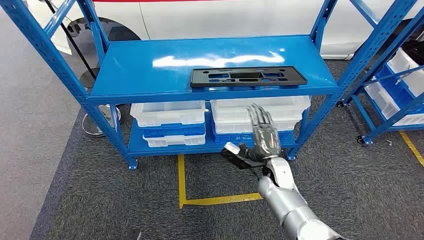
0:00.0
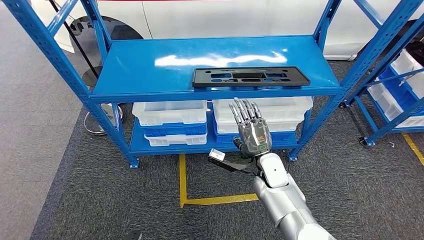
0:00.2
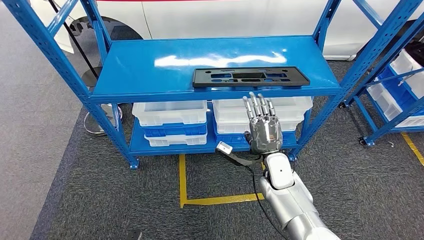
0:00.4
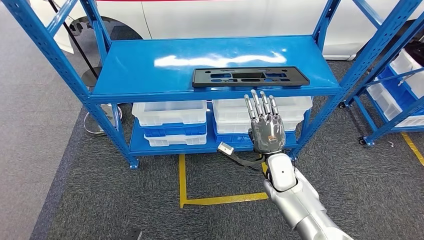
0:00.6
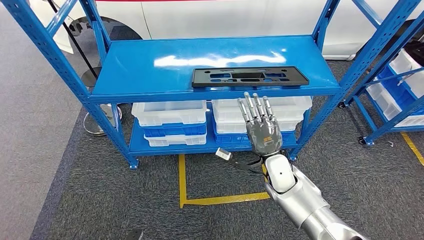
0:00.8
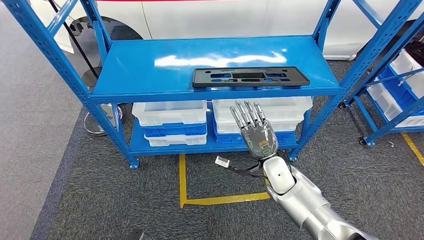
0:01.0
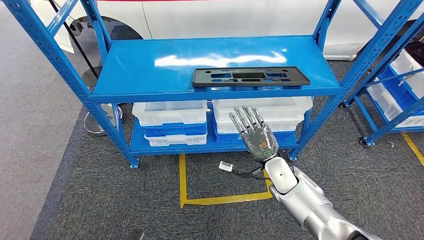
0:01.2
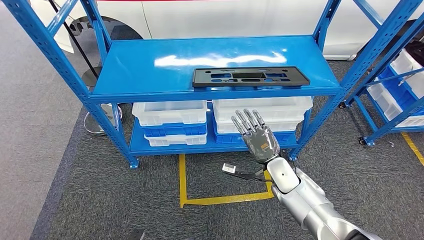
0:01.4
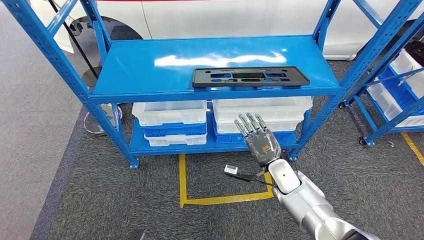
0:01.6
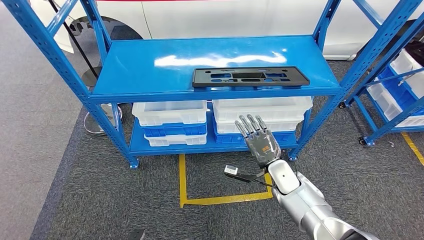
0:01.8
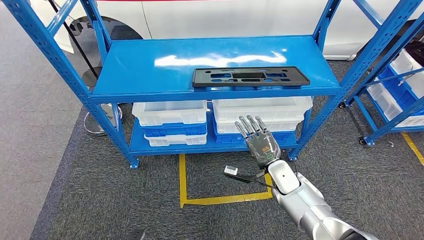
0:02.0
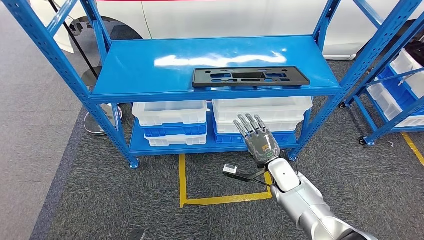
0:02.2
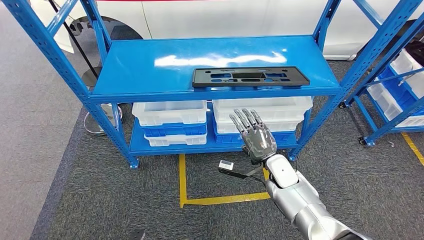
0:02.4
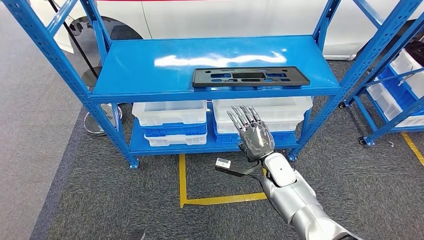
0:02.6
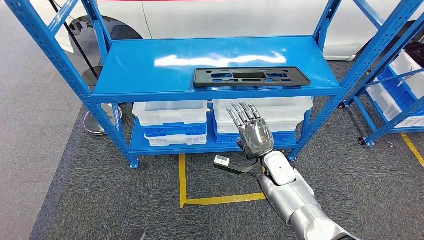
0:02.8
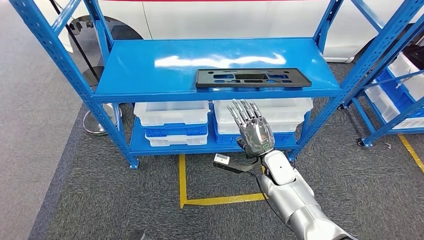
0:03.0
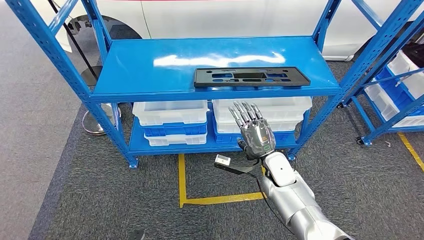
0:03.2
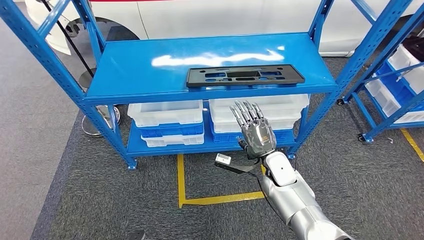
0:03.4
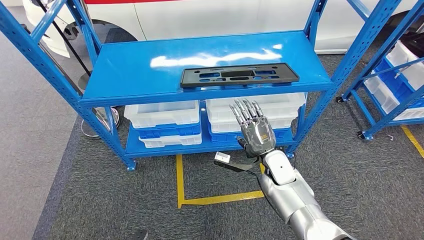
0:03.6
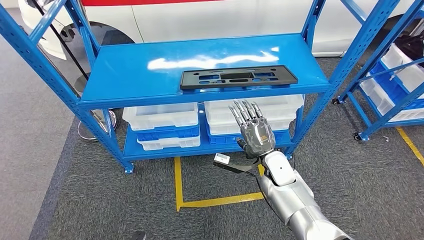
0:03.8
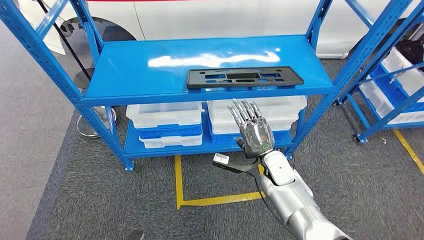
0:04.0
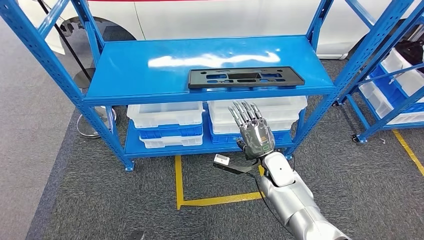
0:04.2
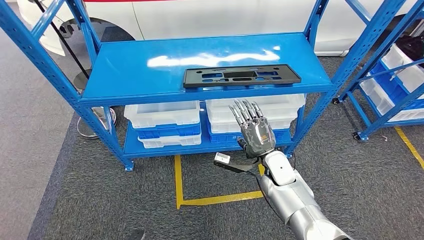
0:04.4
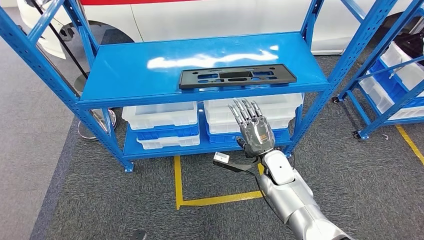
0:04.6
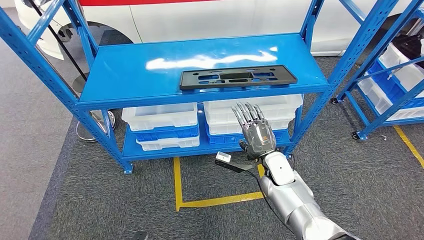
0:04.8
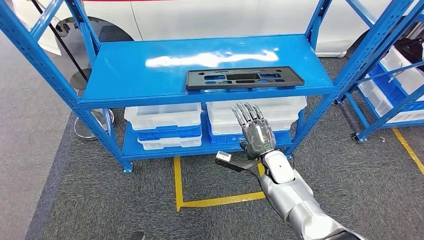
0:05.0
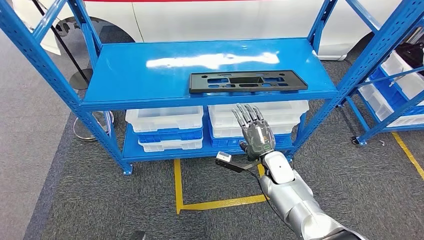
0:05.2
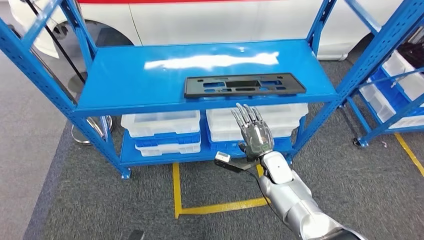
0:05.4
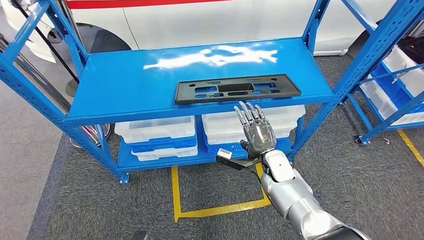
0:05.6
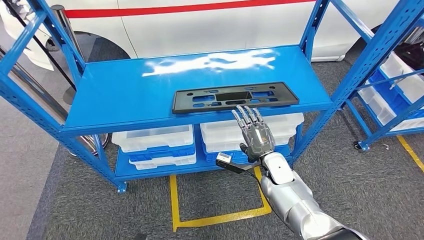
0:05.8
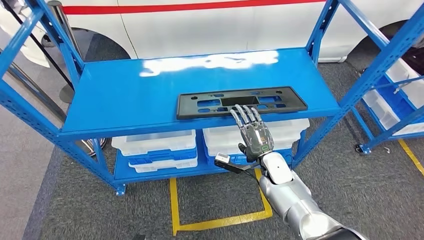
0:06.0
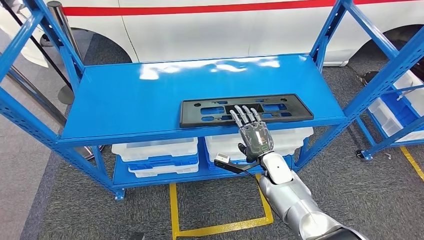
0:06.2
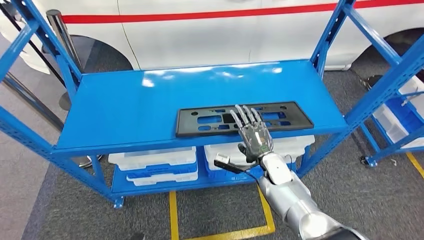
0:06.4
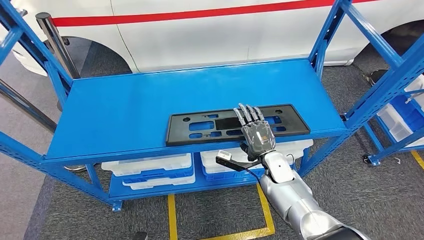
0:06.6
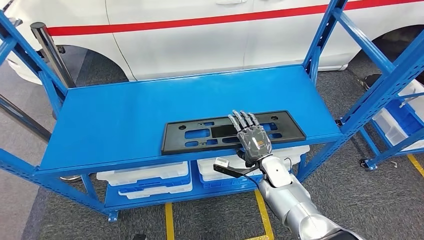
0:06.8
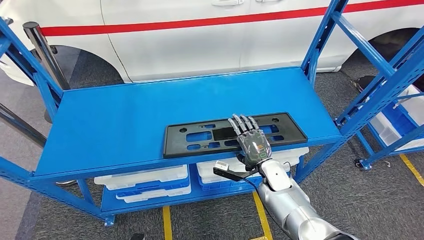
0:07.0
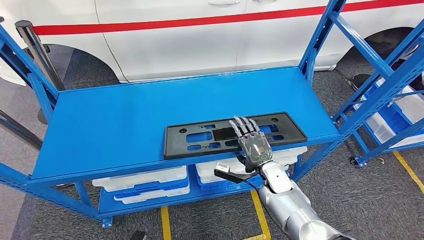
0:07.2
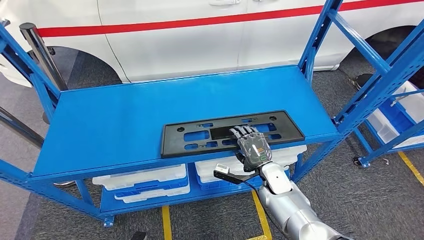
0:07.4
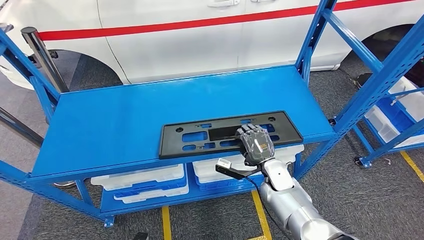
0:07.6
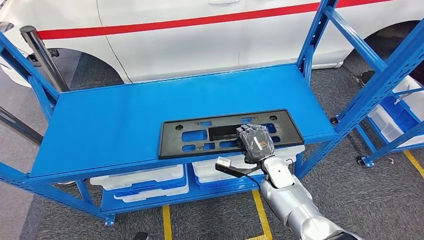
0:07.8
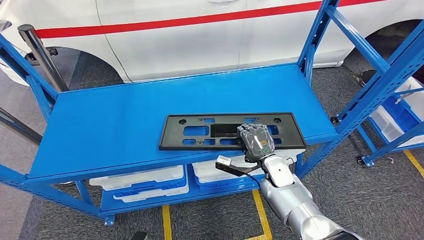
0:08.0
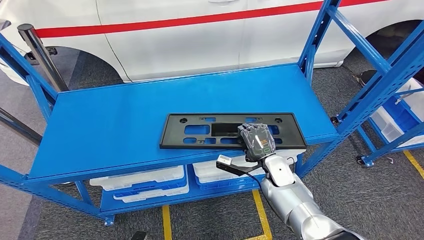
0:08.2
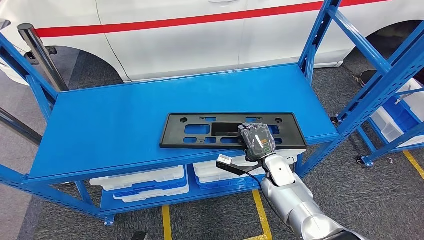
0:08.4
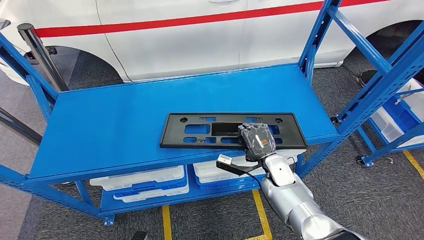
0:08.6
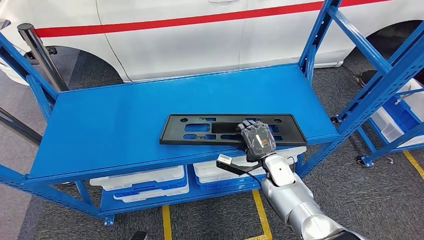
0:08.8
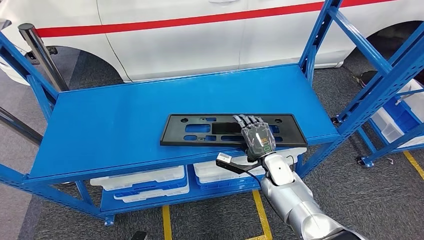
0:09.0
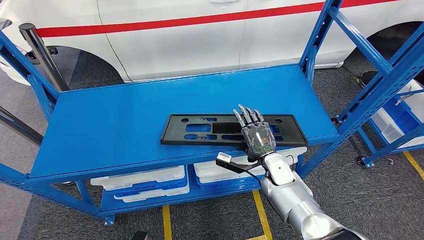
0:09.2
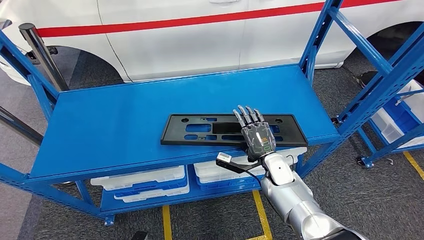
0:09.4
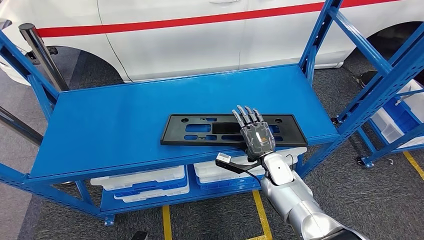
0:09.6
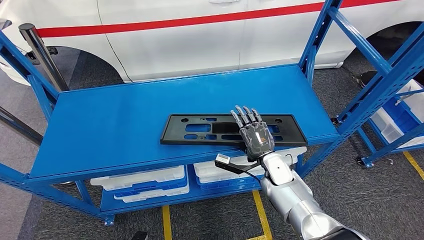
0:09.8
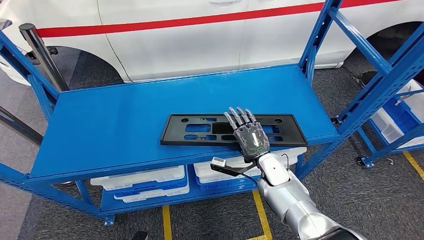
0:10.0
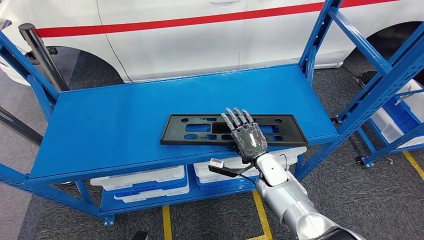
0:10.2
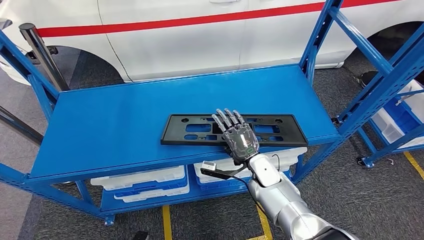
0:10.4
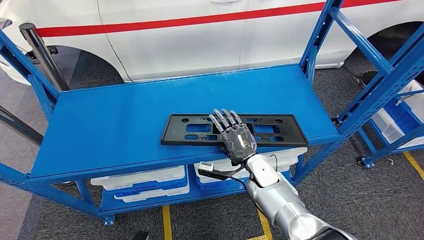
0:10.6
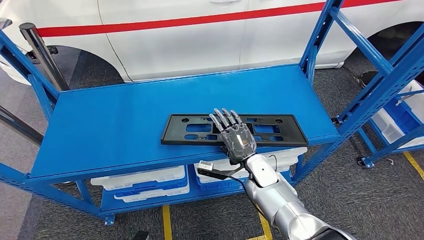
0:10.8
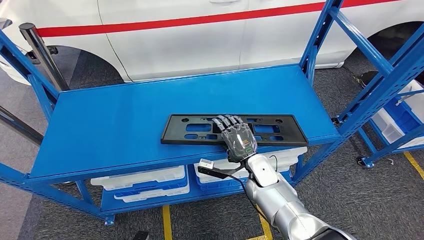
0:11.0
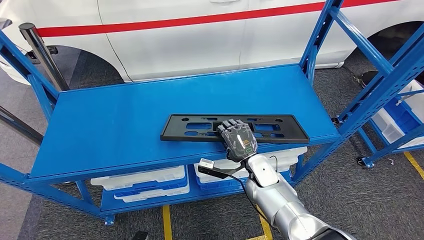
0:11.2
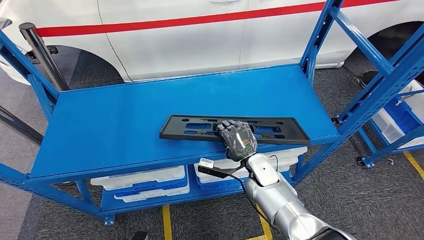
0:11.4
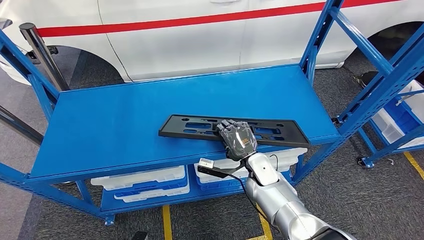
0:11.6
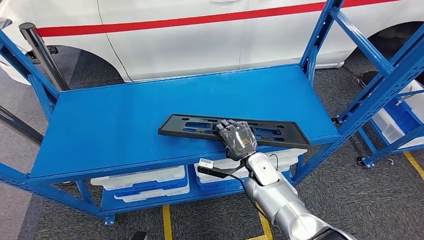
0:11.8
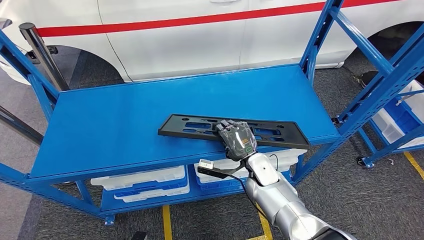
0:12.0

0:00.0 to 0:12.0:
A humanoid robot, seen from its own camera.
0:01.6 to 0:03.0: The hands stay close to where they were, moving slightly.
0:09.0 to 0:12.0: The hands make only small movements.

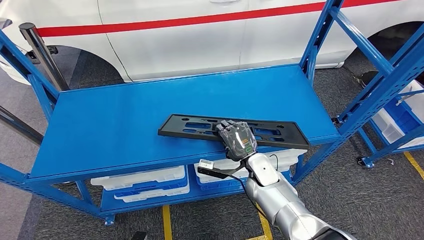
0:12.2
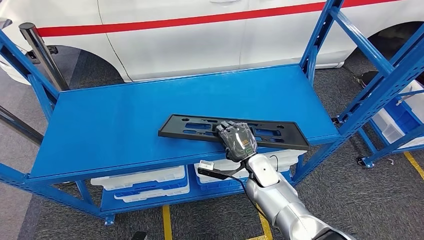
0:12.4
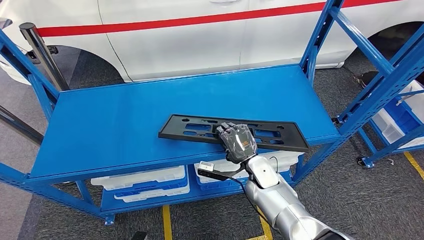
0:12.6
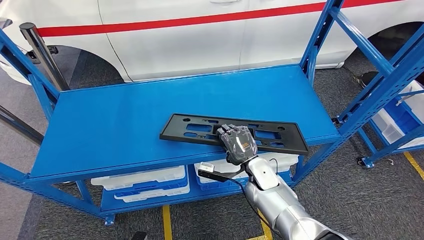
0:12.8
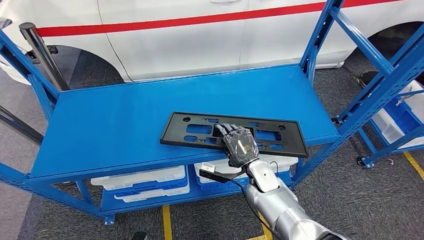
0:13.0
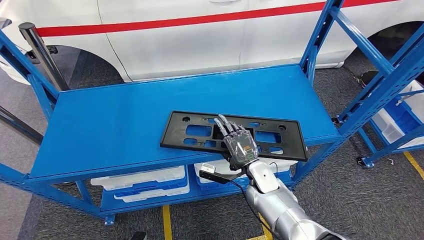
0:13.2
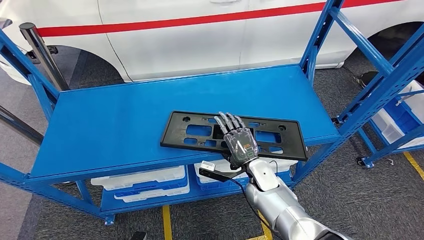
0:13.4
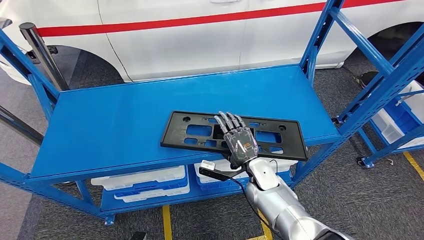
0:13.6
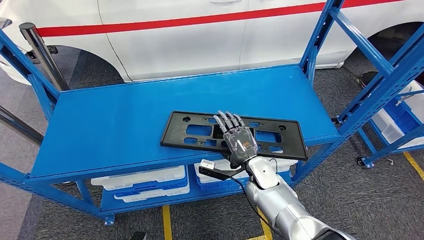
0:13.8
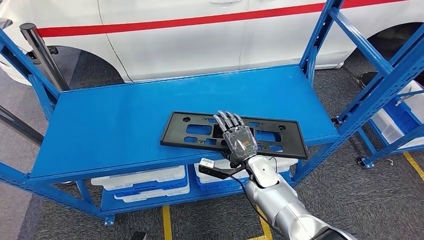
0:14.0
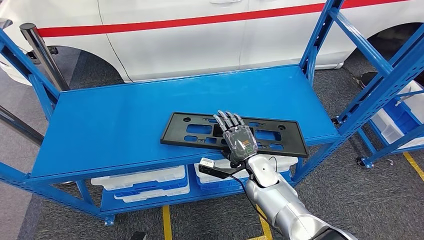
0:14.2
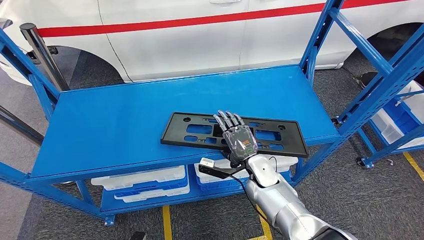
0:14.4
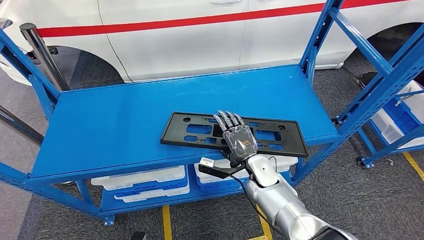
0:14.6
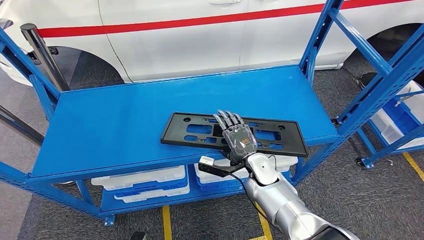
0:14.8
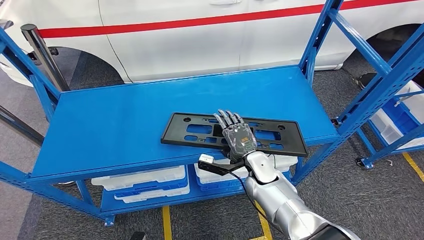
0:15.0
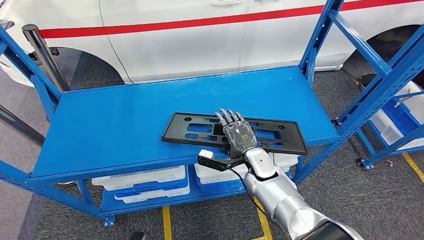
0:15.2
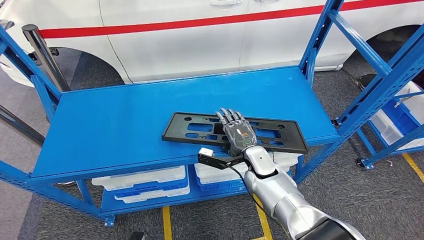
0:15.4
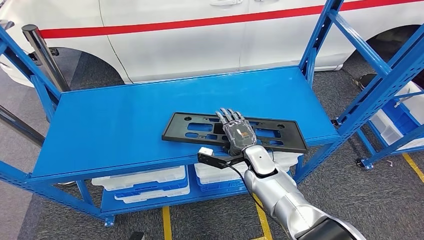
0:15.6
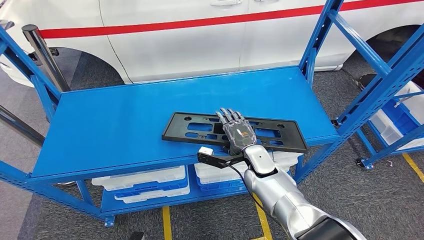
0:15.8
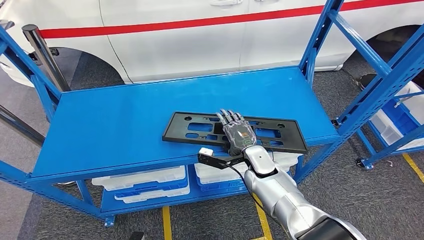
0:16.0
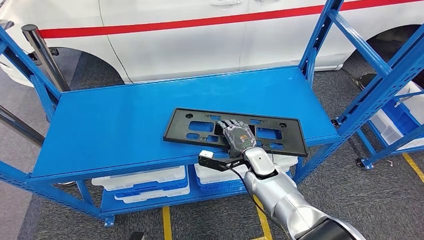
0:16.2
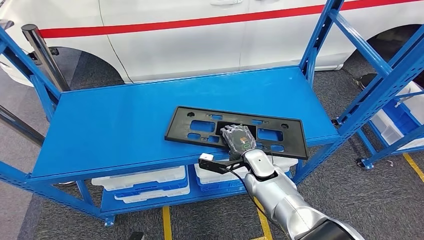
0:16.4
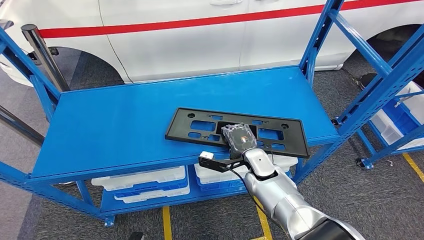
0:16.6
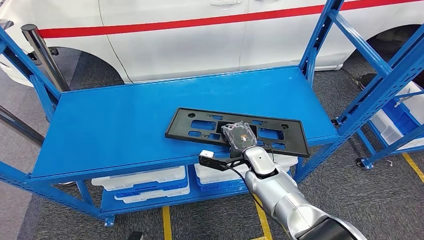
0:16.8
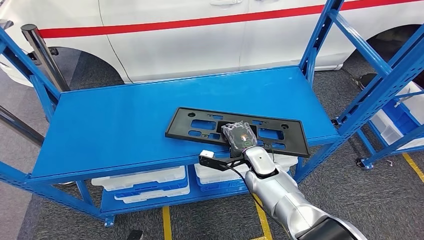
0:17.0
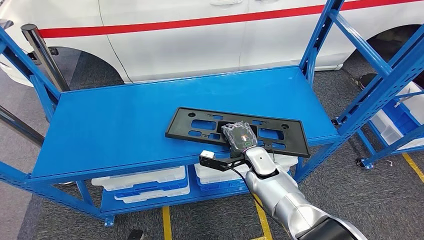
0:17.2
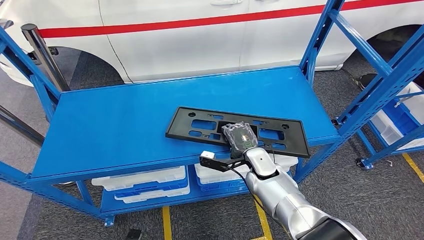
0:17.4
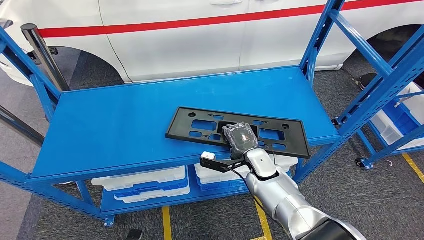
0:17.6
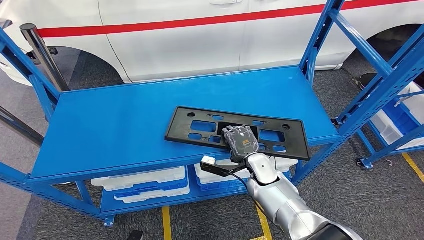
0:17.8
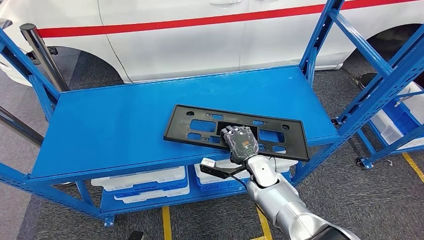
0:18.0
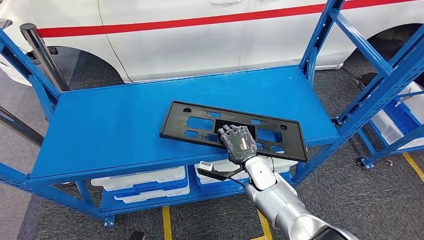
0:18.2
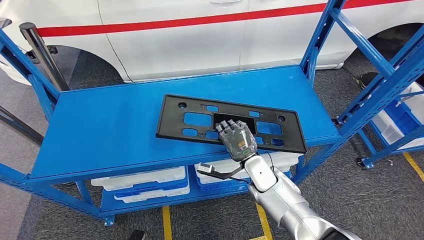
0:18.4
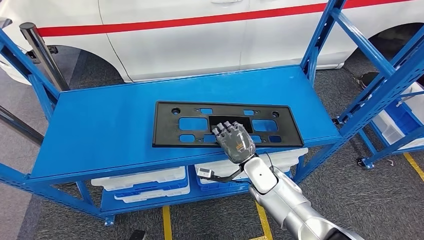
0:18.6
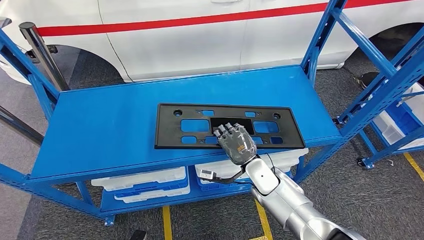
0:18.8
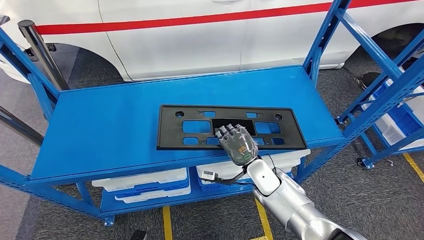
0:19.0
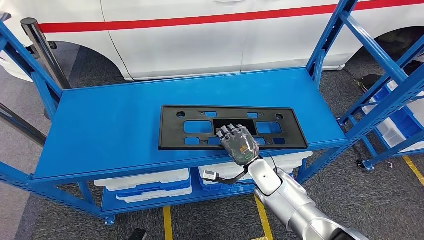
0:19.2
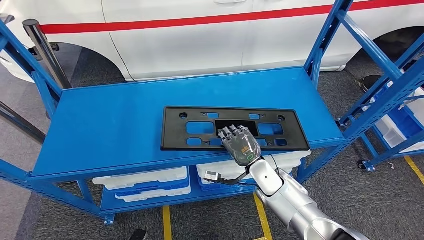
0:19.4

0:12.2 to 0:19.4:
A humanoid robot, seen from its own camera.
0:12.2 to 0:15.0: The hands make only small movements.
0:15.0 to 0:18.0: The hands make only small movements.
